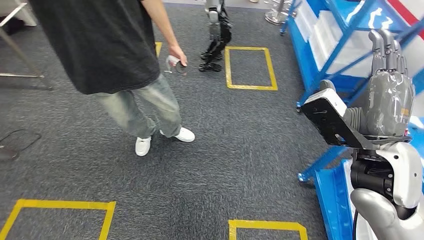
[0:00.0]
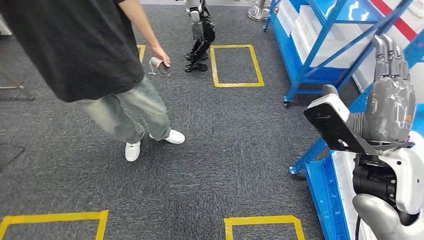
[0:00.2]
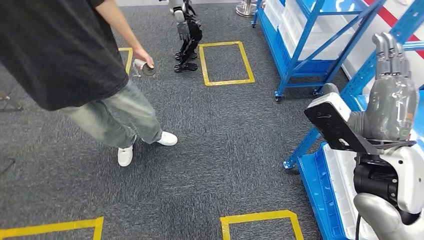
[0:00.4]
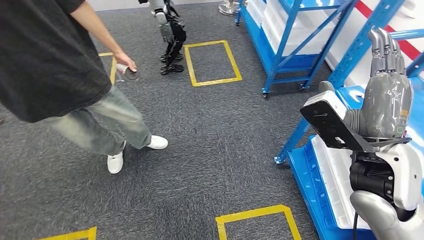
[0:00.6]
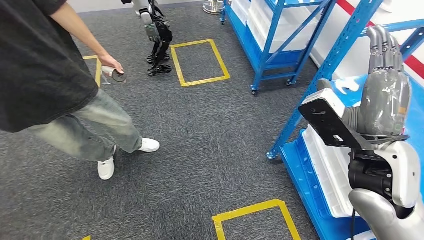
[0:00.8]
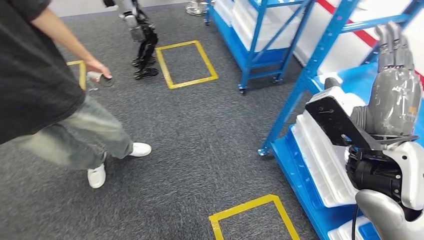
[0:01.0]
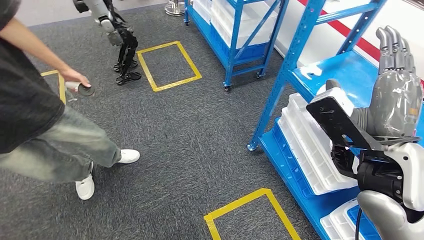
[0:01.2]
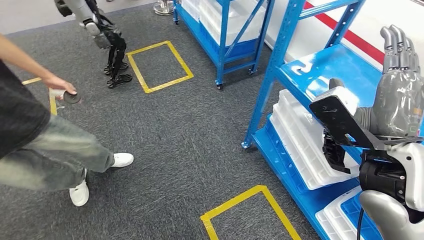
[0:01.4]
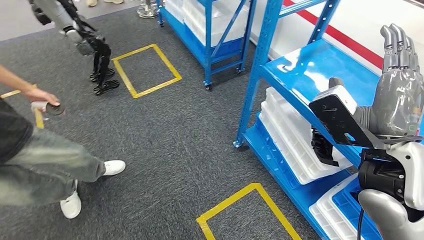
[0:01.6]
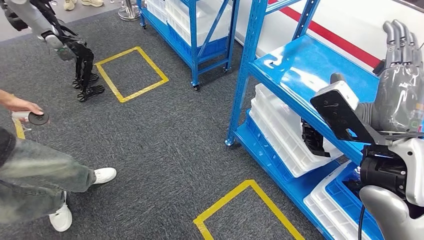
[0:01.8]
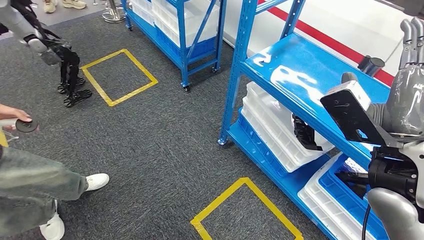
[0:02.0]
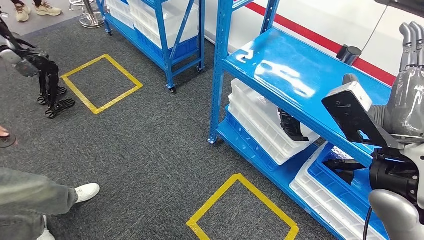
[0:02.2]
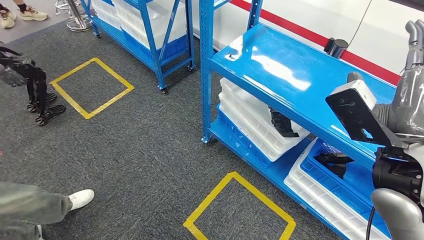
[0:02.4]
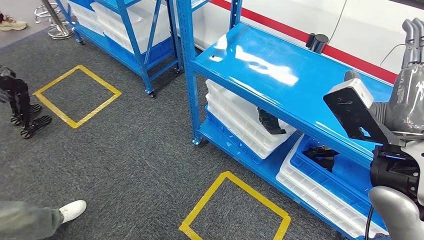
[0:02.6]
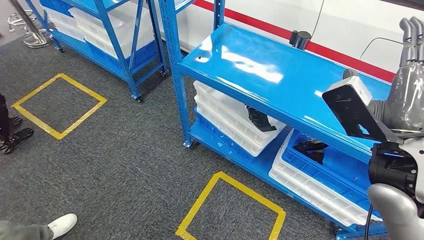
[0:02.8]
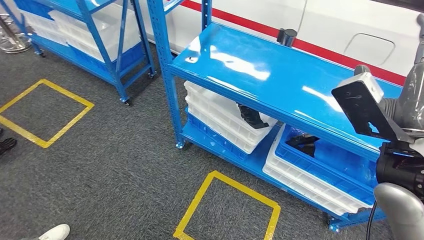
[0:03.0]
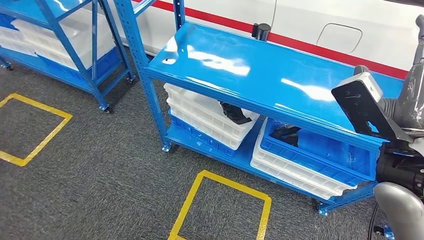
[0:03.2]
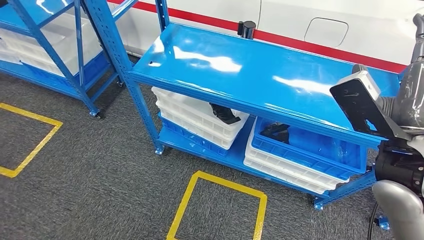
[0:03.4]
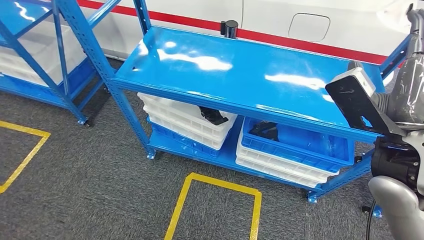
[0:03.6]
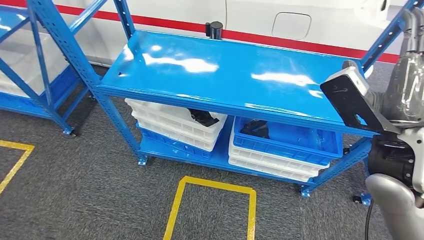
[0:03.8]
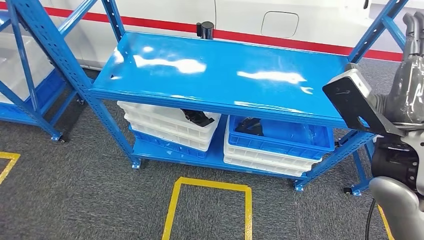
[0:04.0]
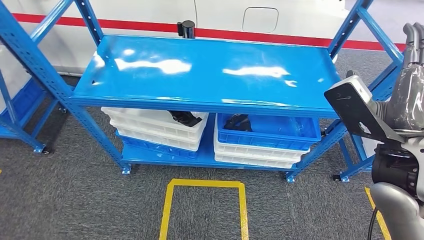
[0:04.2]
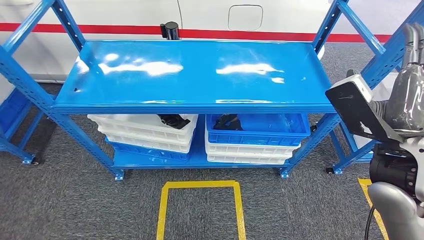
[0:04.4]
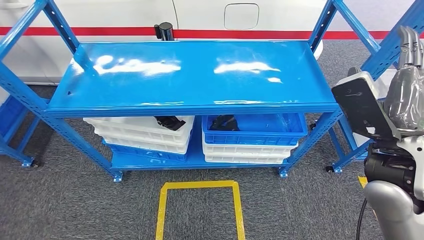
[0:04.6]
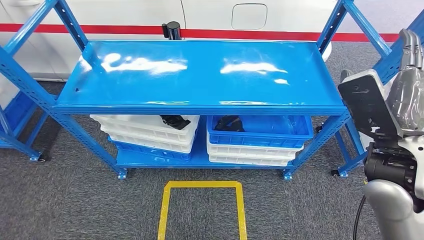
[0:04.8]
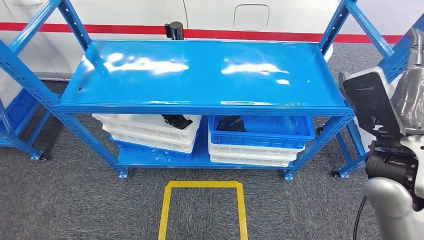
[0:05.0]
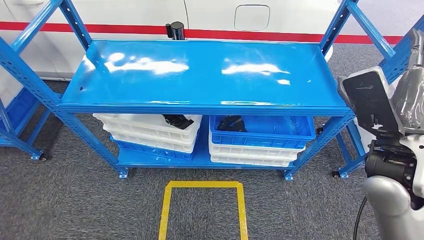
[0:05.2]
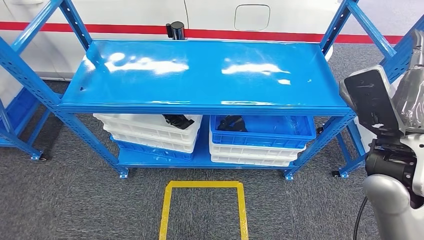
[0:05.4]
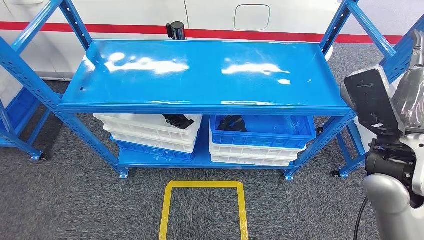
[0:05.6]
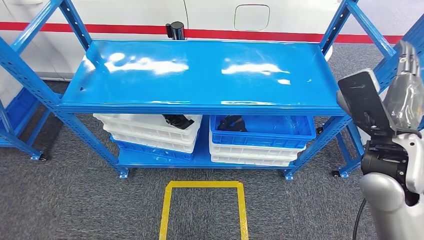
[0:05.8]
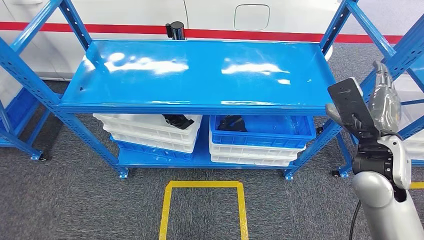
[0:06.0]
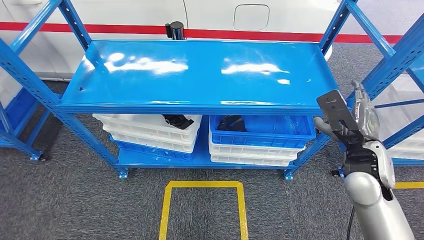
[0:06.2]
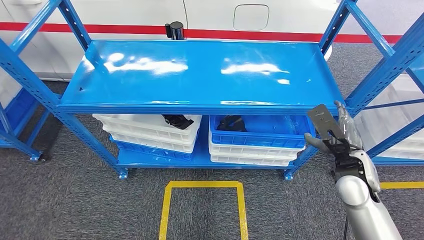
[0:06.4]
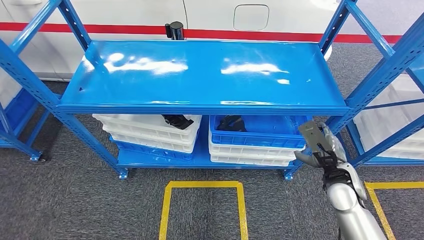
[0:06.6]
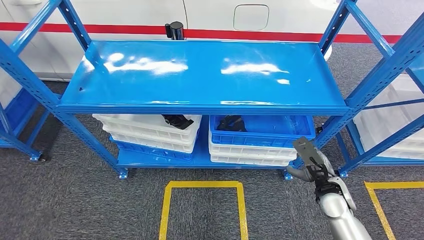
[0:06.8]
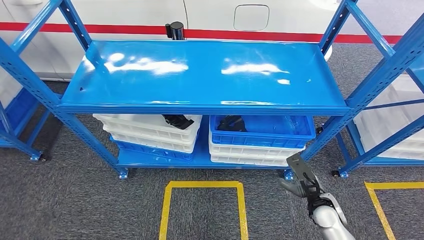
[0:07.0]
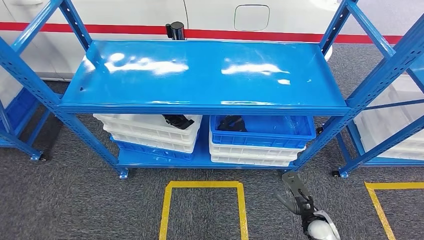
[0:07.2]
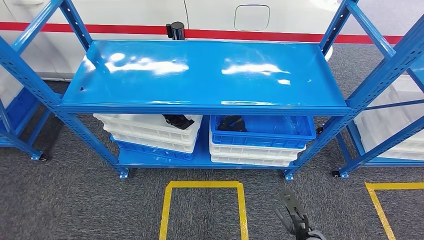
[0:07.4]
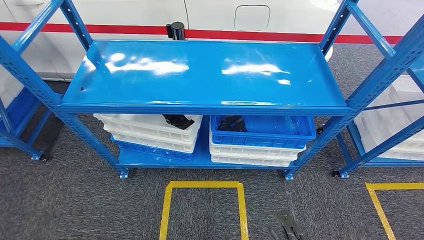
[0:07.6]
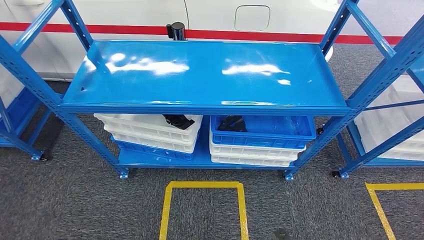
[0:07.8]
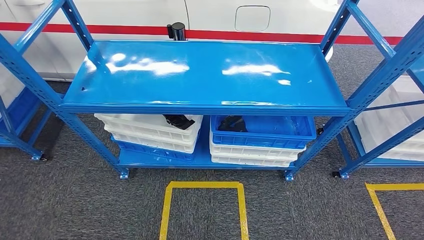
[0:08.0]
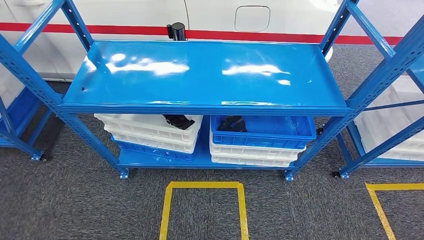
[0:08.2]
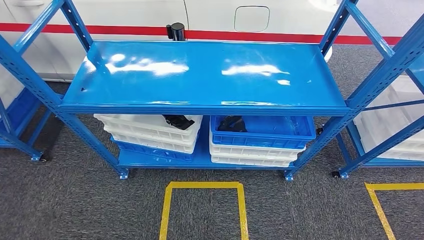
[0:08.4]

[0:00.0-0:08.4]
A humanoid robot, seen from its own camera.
Step, 0:00.0 to 0:08.4: Move to the initial position of the shelf.
0:05.6 to 0:07.0: The right hand heads downward, covering about 30 cm.
0:07.0 to 0:08.4: The right hand is displaced backward, downward and to the left by some 30 cm.
